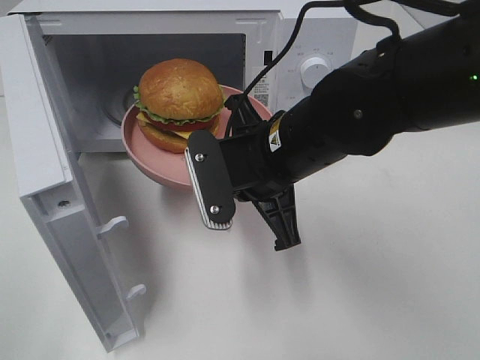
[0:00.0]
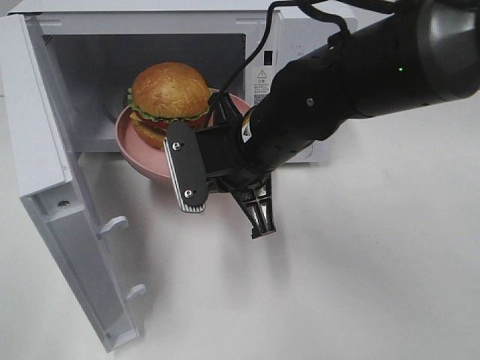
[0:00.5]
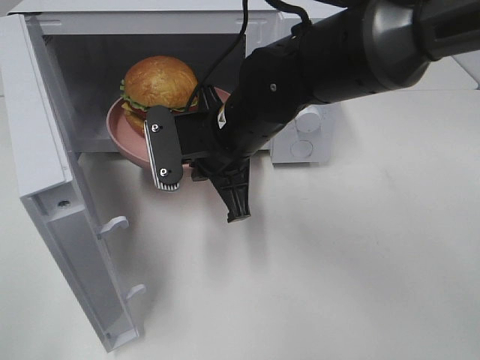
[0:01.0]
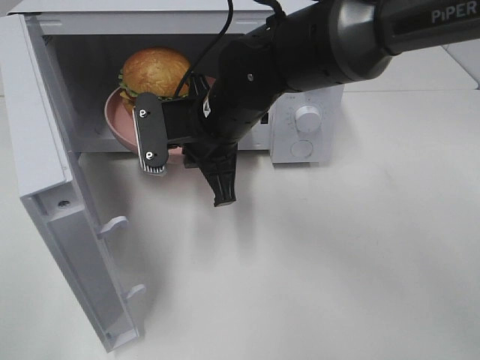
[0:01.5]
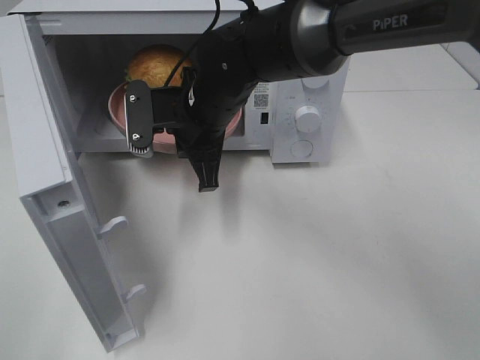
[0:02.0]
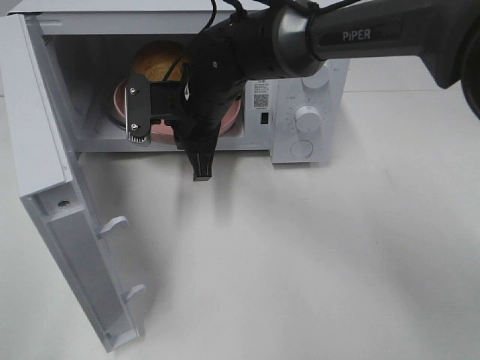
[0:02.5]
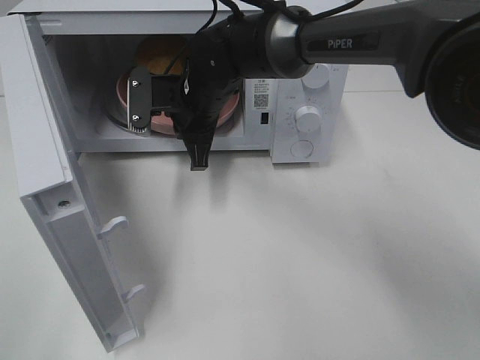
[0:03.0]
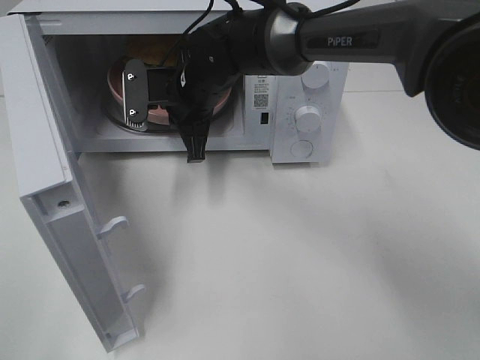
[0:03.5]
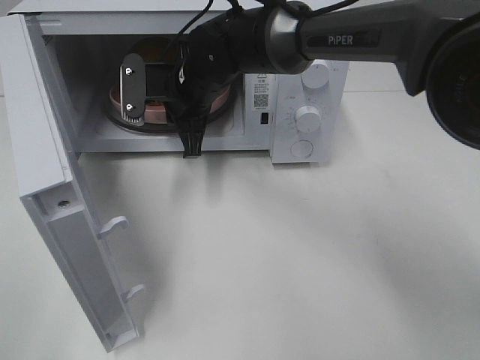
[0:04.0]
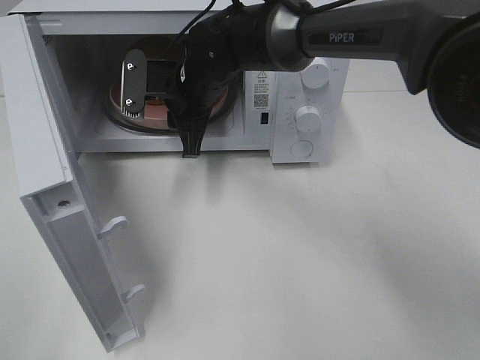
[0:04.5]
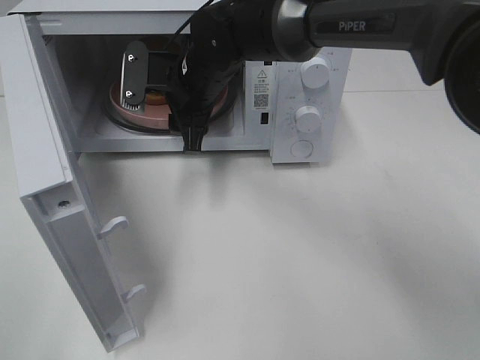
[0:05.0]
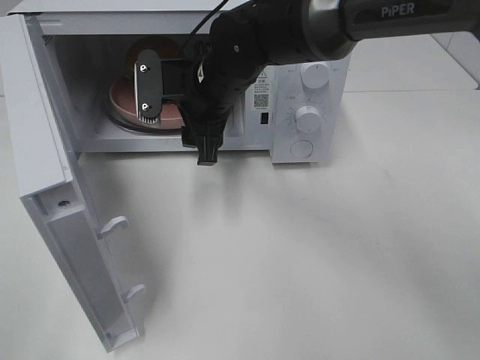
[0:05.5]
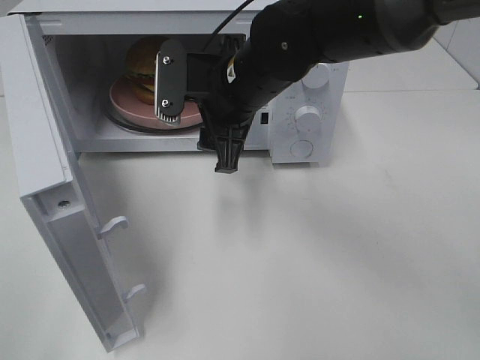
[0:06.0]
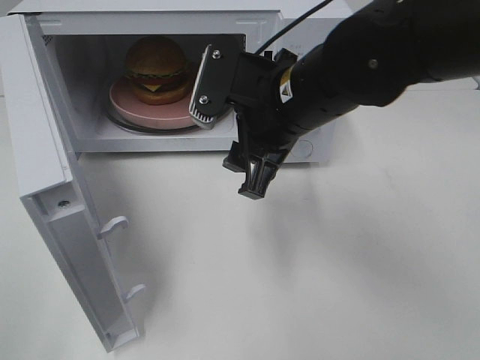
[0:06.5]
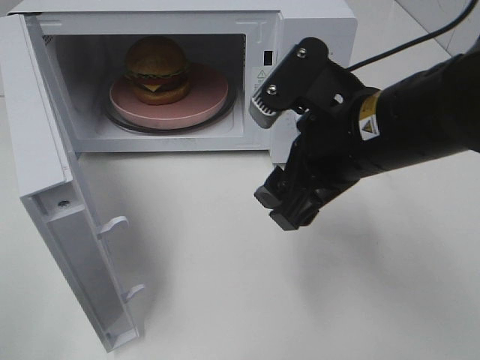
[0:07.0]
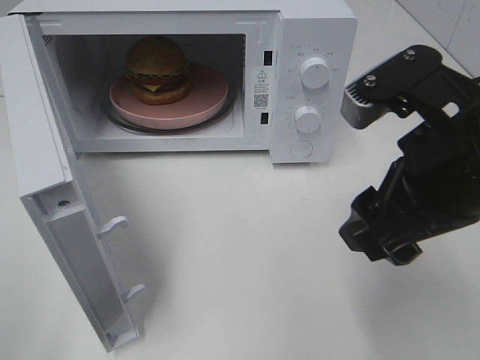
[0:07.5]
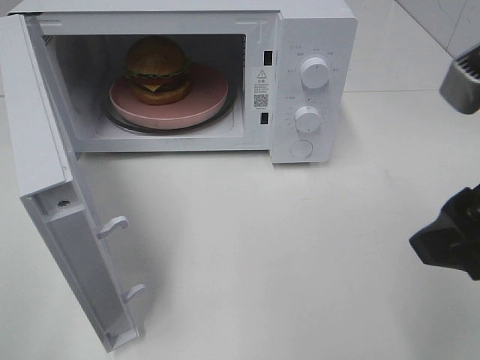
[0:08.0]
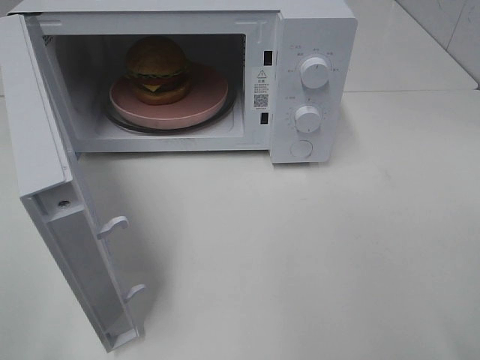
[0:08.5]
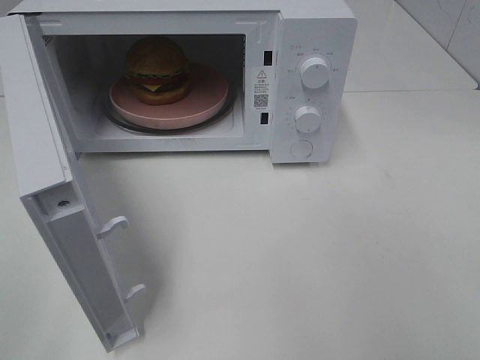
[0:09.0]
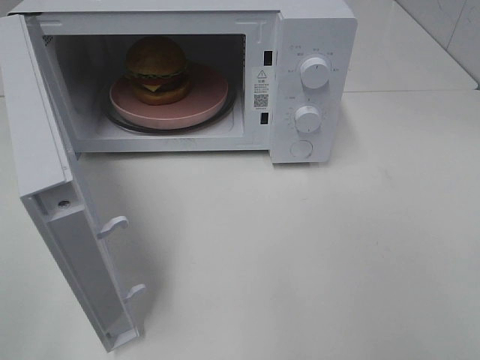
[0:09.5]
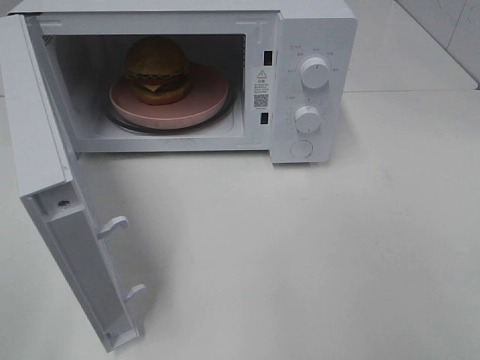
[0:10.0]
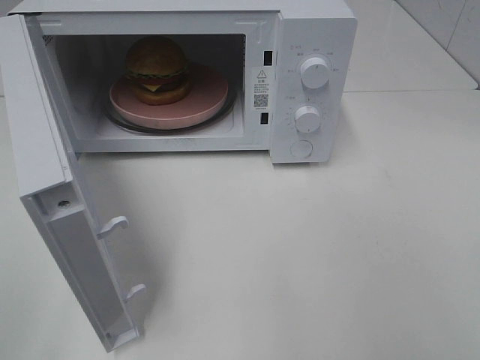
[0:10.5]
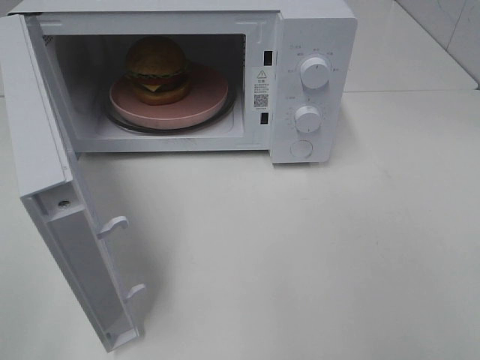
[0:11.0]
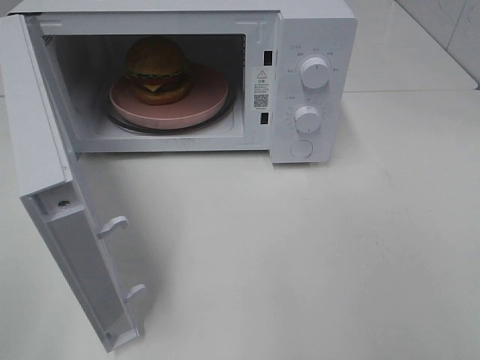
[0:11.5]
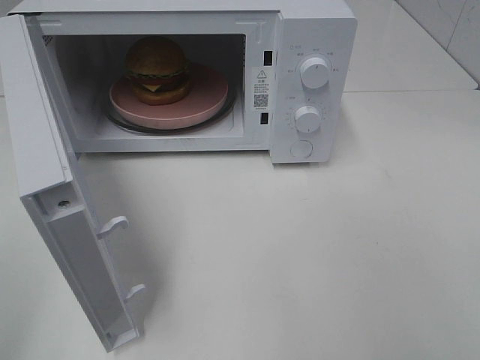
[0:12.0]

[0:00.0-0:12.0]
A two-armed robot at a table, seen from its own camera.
Task of the whole recording: Heat the burger.
Step, 0.0 to 4.5 s: Right hand: place the plate in the microwave.
0.0 to 2.0 s: The right gripper goes about 15 cm forward and to the left.
2.0 to 4.0 s: The right gripper is displaced forward by some 5 cm.
4.0 to 6.0 s: The right gripper is displaced backward and to the right by some 10 cm, and opens its fingers.
6.0 to 8.0 s: The right gripper heads backward, to the right and upward, covering about 30 cm.
8.0 to 10.0 s: The right gripper moves backward and to the right, some 15 cm.

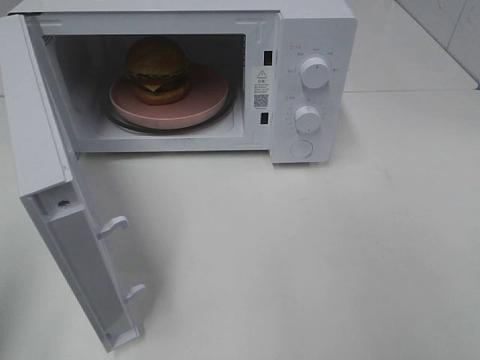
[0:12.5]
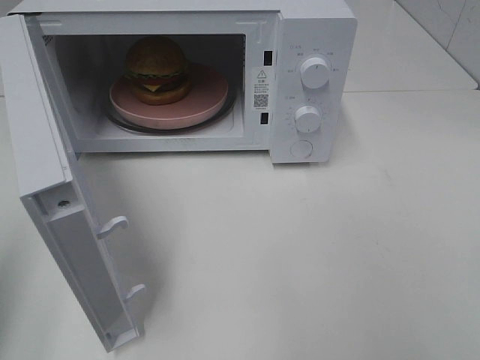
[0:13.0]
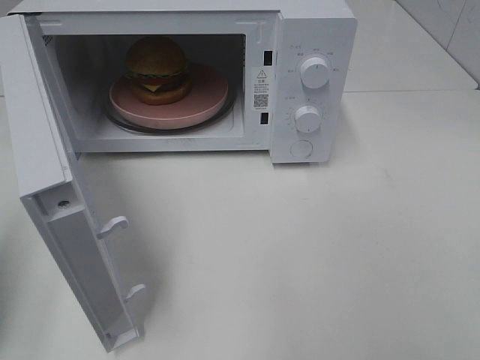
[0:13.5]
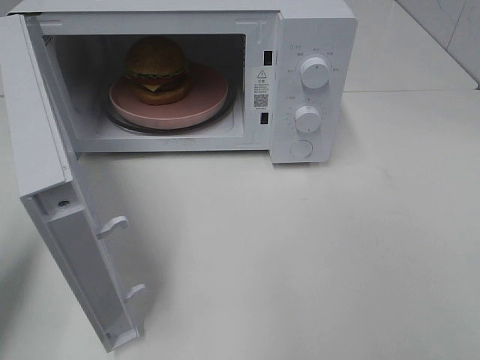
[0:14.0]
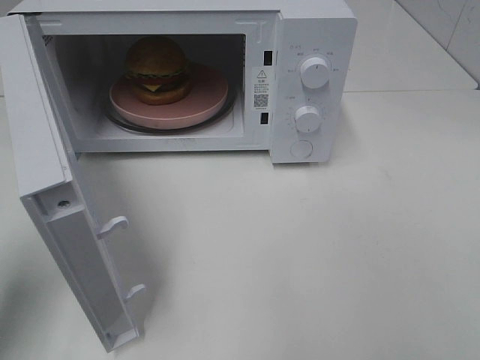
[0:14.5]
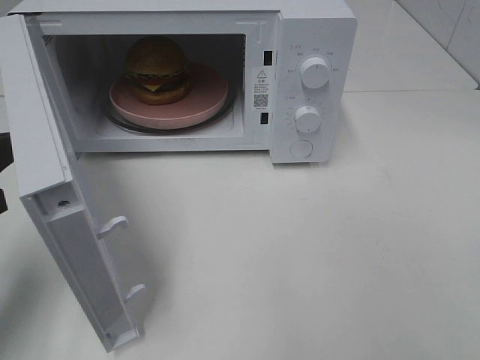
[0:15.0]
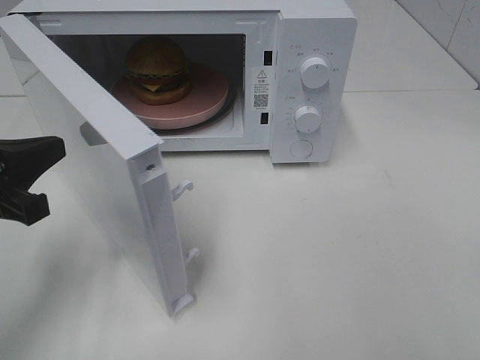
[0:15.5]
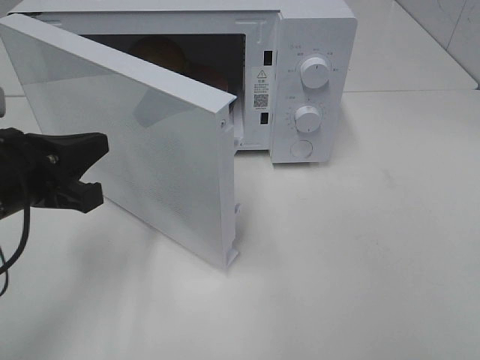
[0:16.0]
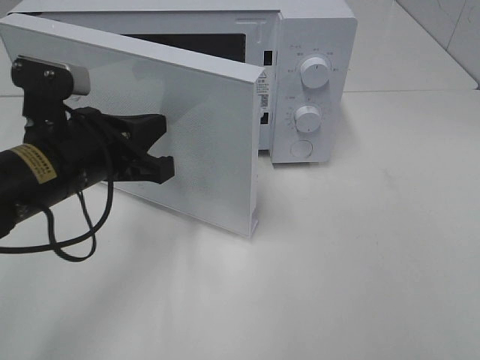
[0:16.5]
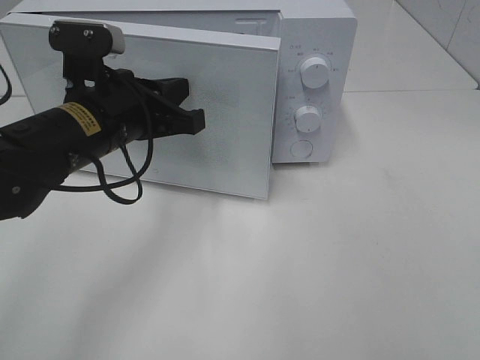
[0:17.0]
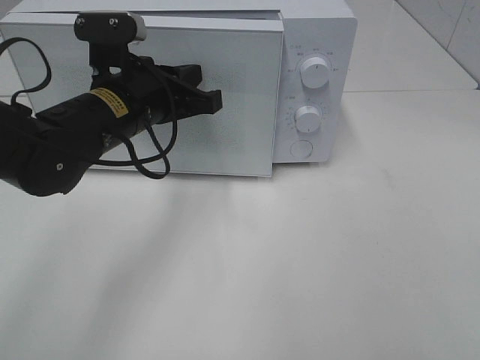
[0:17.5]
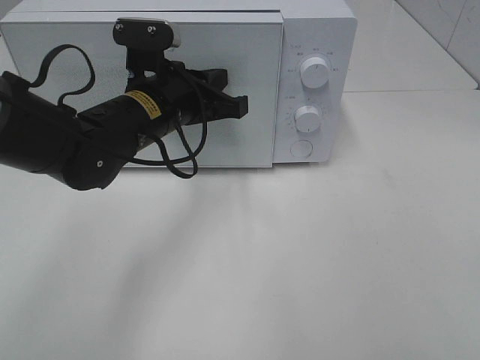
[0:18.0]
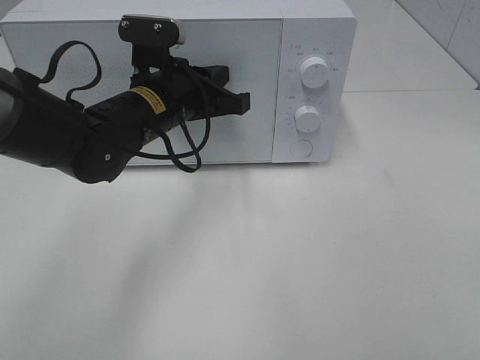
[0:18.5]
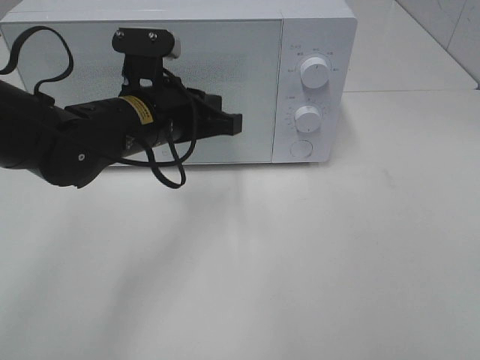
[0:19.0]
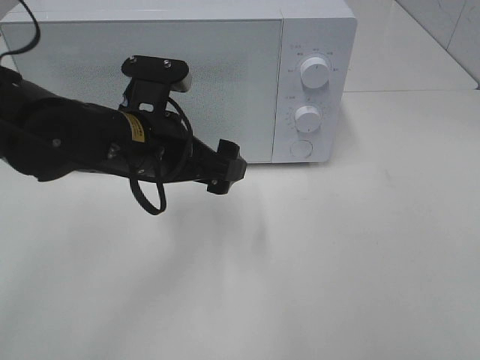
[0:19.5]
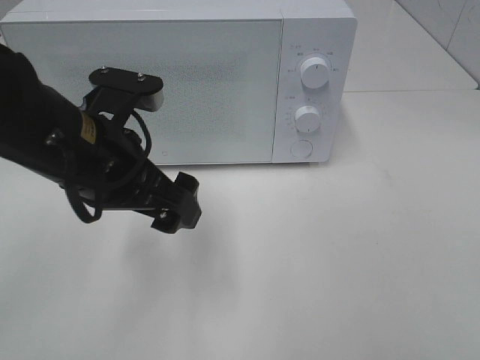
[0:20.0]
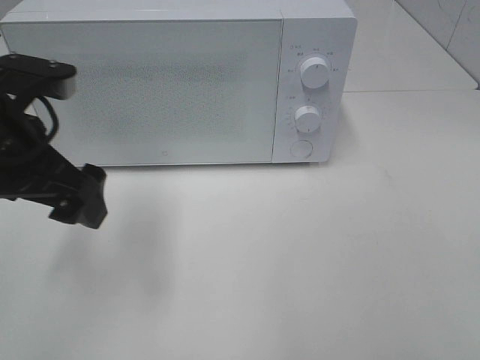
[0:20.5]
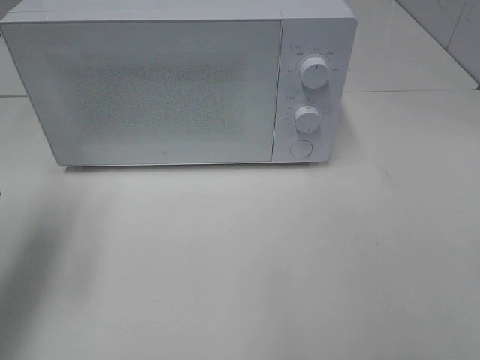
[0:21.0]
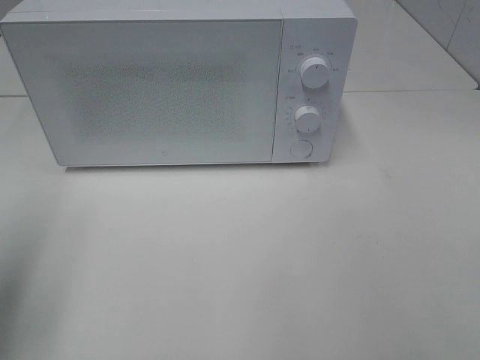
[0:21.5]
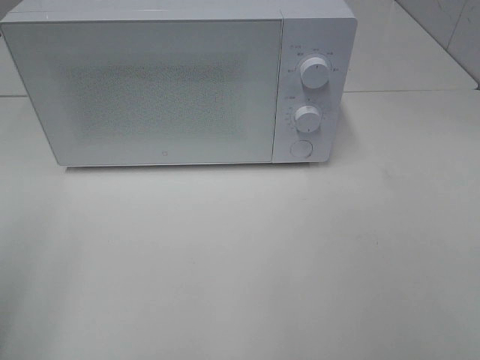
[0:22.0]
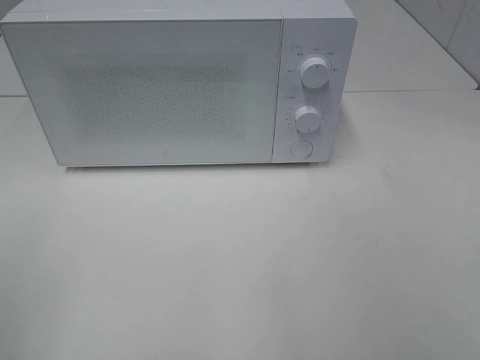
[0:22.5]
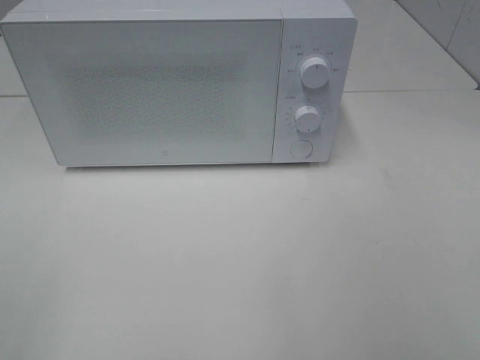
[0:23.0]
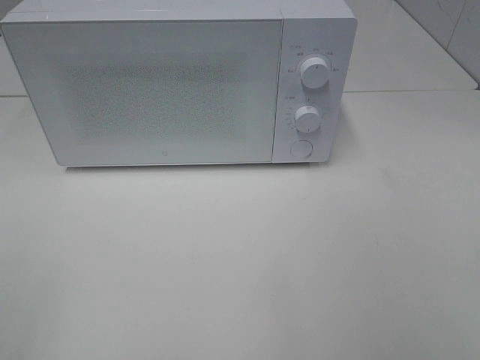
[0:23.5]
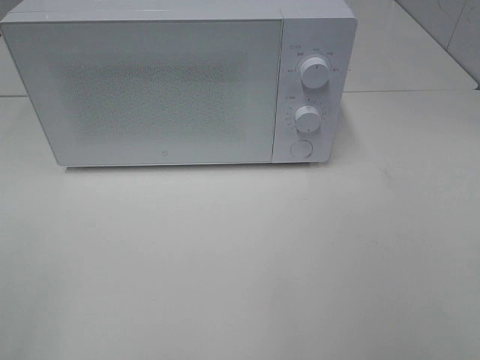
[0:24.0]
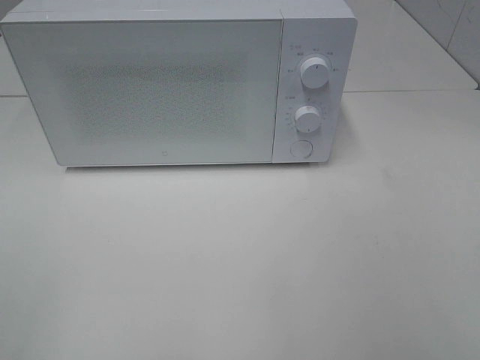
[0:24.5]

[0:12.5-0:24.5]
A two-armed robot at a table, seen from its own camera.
Task of the whole recording: Heat the burger.
Step, 12.5 to 19.0 s: Left hand: close the microwave door.
12.5 to 14.5 s: The left gripper is displaced forward and downward by roughly 15 cm.
14.5 to 16.5 s: The left gripper heads to the right and forward, covering some 15 cm.
16.5 to 18.5 s: The left gripper heads forward and to the right, covering some 10 cm.
18.5 to 20.5 s: The left gripper goes approximately 15 cm to the left, backward and upward, and opens up.
20.5 to 22.5 s: The left gripper heads backward and to the left, covering roughly 25 cm.

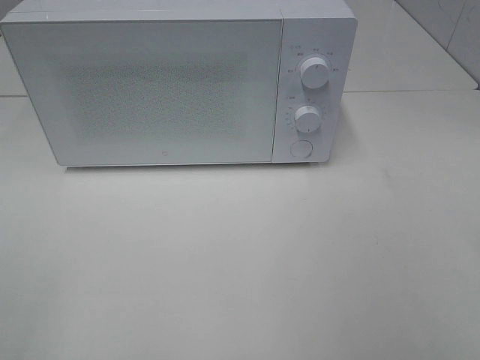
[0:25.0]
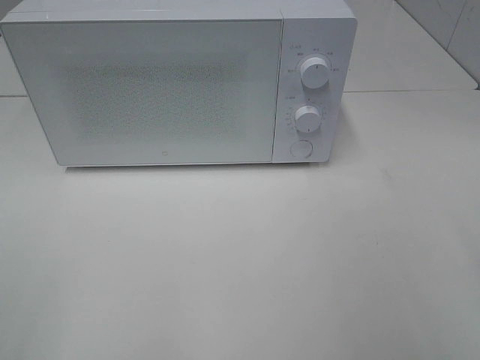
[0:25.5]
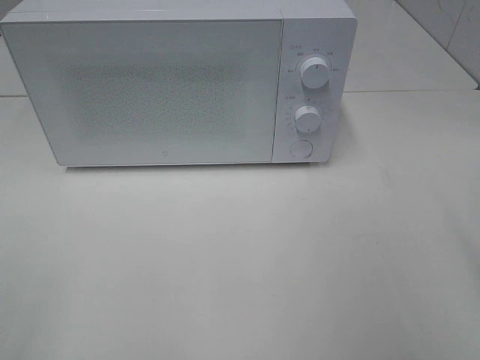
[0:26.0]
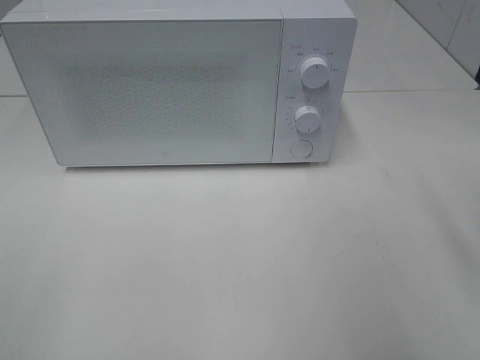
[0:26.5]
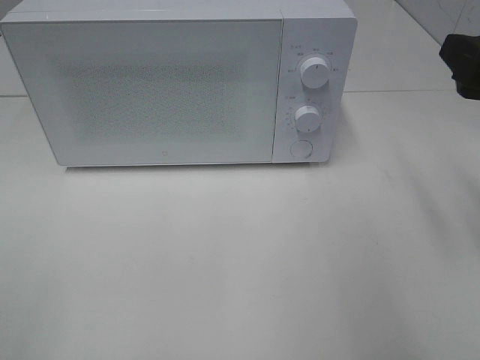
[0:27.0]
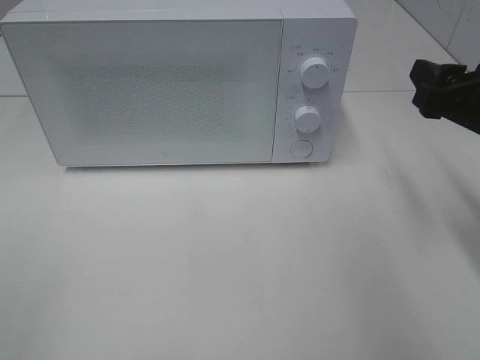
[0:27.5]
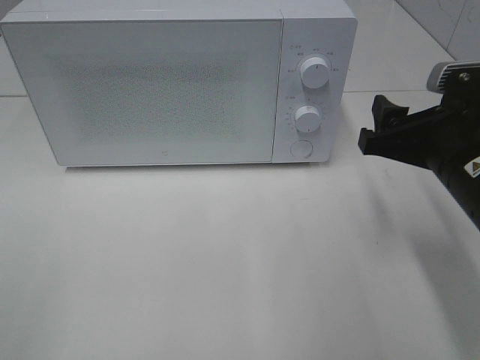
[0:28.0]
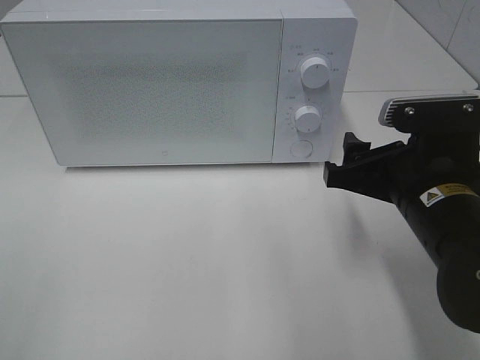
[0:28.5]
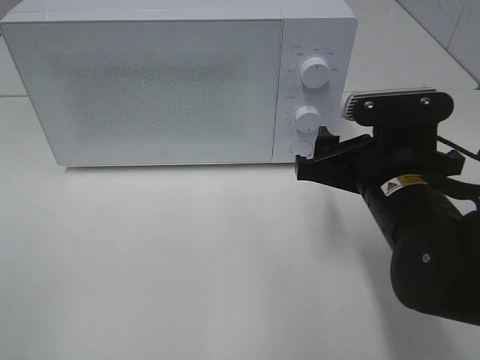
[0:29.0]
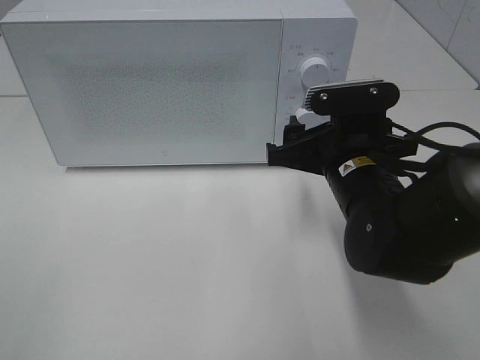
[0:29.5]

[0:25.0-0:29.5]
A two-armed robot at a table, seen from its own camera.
Task of the whole recording: Heat the burger.
25.0 to 27.0 s: The right gripper travels forward by about 20 cm.
27.0 to 29.5 s: The right gripper shifts approximately 20 cm to the left and downward.
